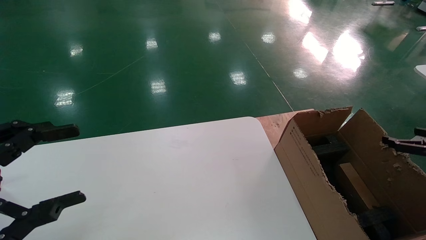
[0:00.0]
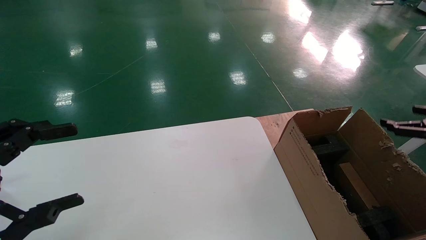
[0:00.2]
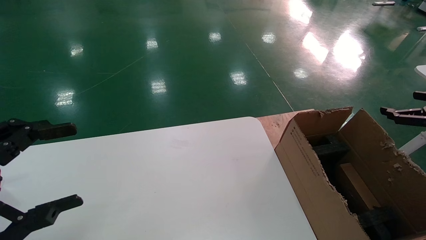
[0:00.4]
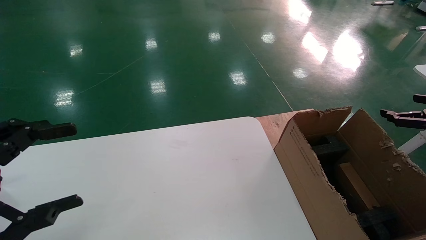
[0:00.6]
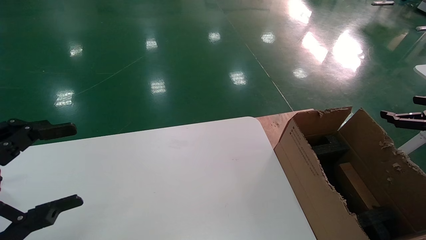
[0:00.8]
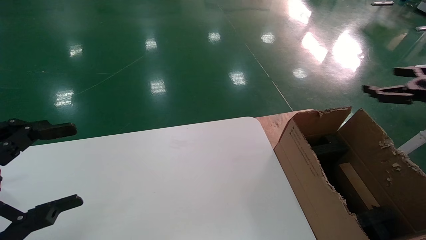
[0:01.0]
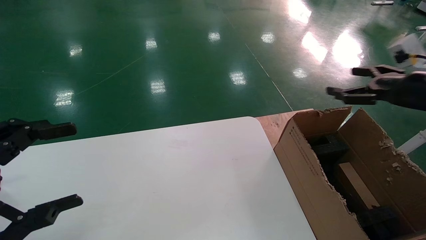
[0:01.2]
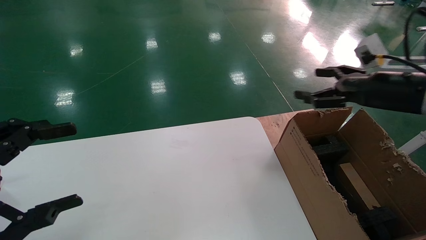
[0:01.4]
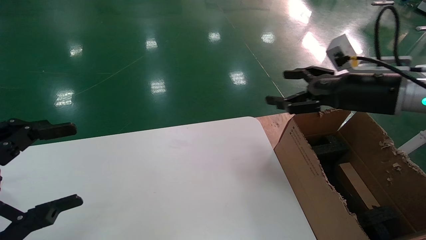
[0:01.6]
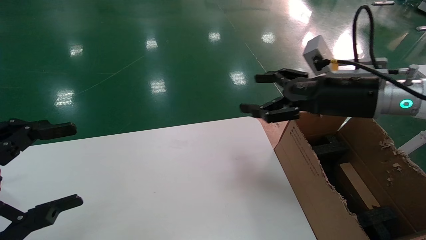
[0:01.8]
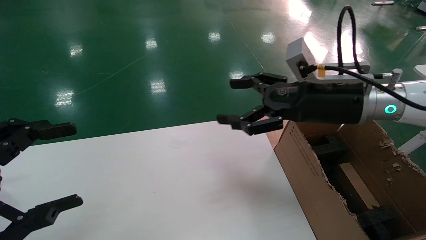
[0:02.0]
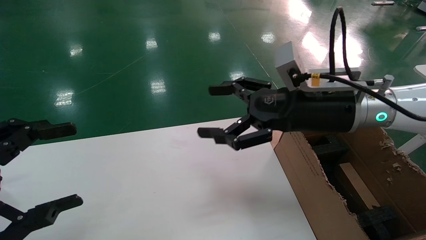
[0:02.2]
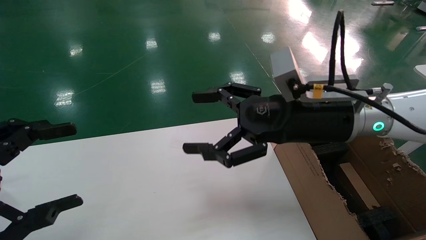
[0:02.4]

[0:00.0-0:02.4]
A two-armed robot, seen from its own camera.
Task of the whole recording: put the box on the table into the big box.
0:00.0 to 0:01.2: The right gripper travels to the left, upward and forward by about 15 cm.
0:01.2 to 0:02.4: The right gripper heads to the left, covering about 25 cm.
